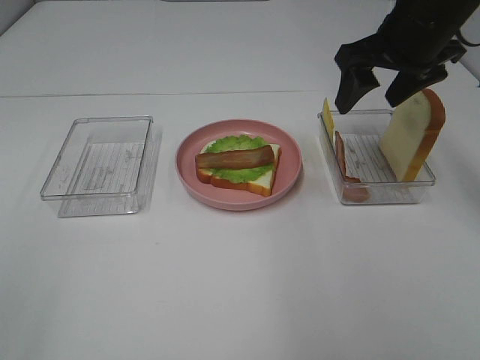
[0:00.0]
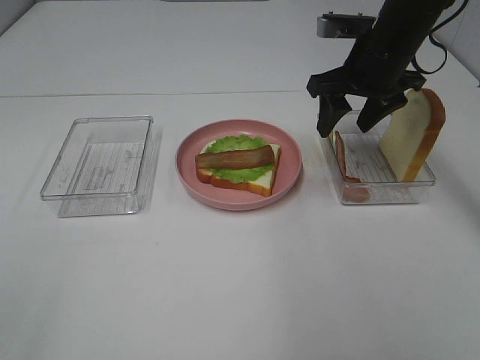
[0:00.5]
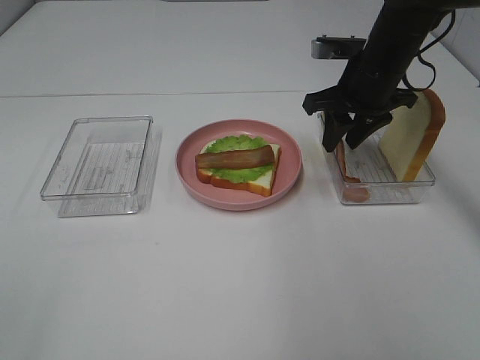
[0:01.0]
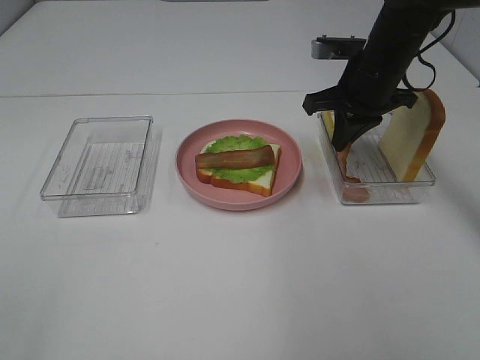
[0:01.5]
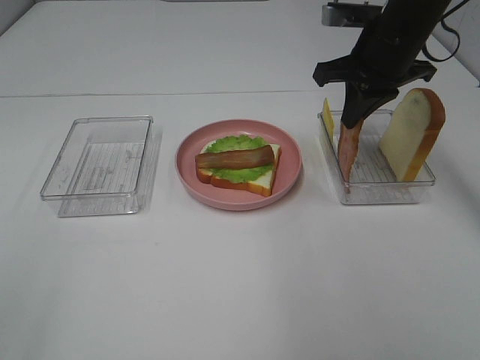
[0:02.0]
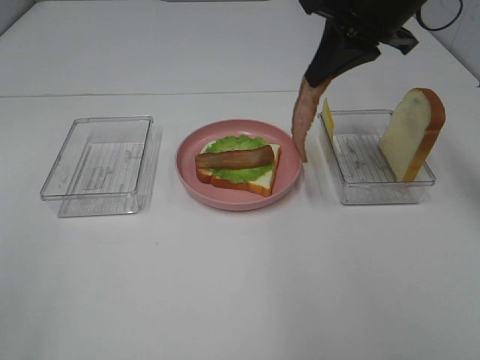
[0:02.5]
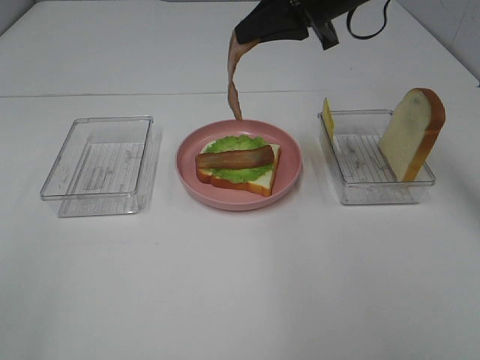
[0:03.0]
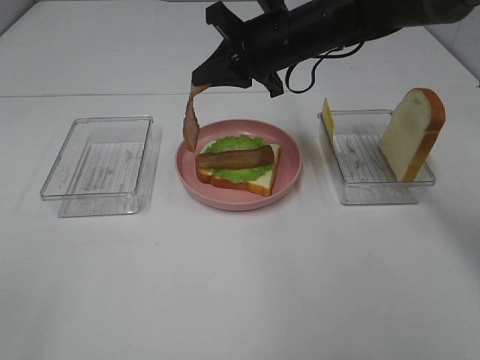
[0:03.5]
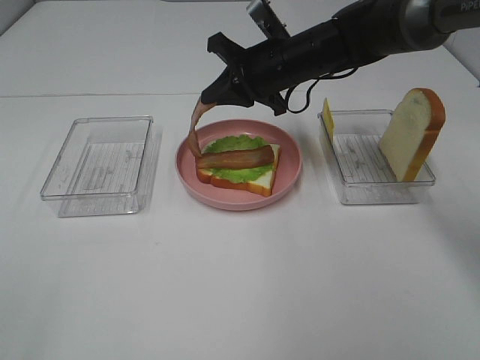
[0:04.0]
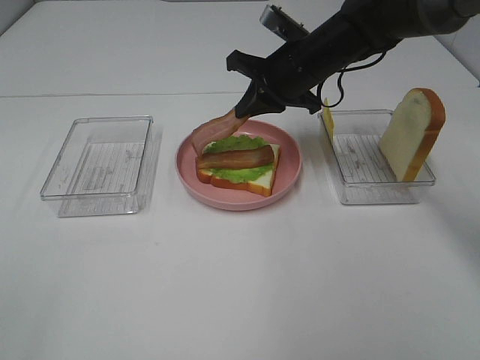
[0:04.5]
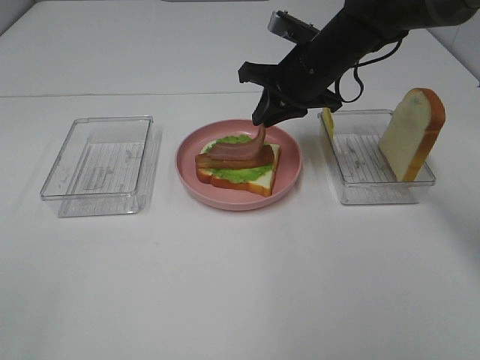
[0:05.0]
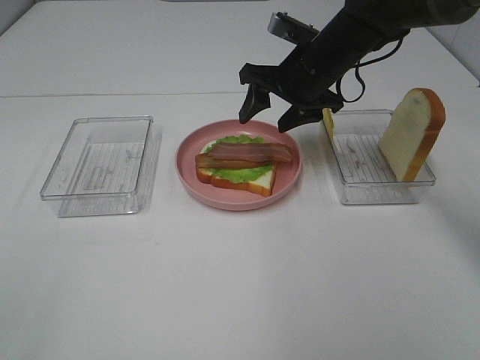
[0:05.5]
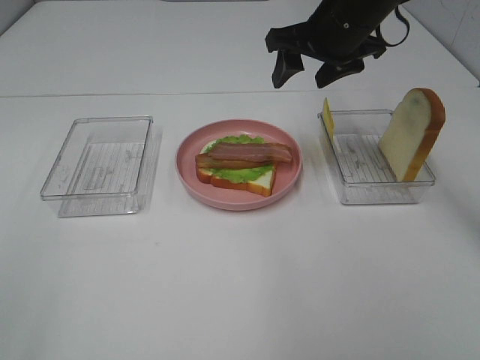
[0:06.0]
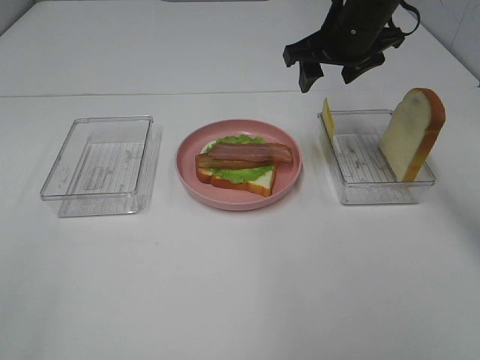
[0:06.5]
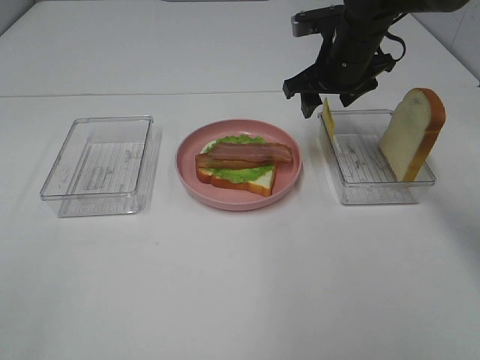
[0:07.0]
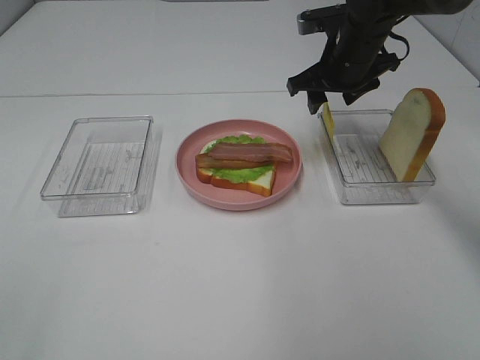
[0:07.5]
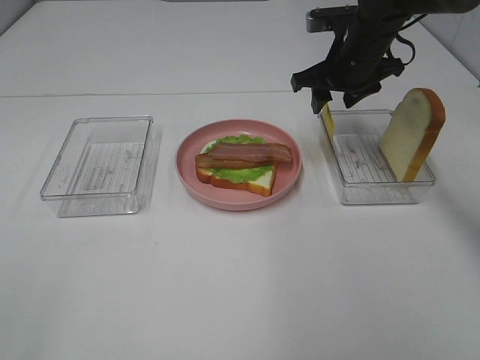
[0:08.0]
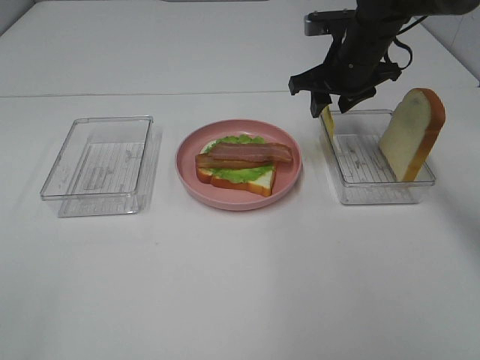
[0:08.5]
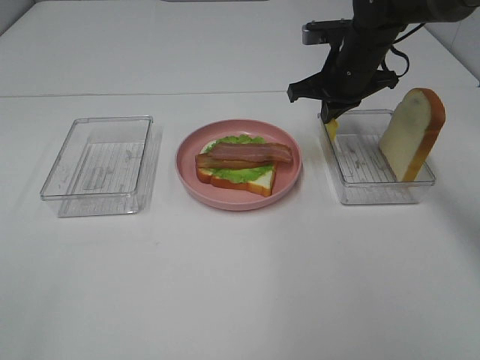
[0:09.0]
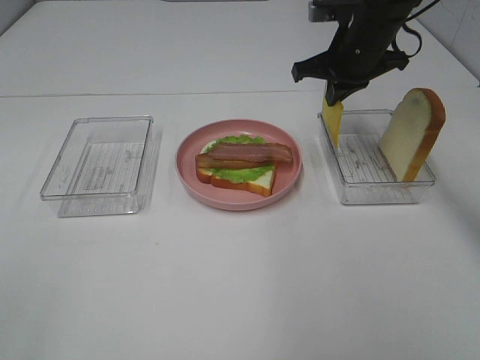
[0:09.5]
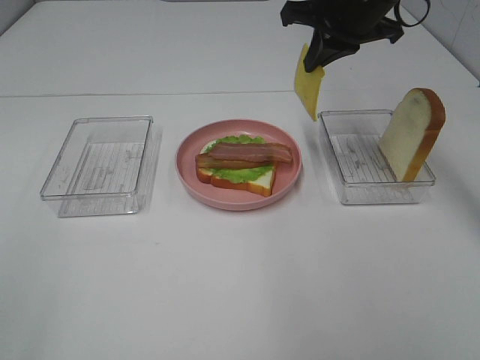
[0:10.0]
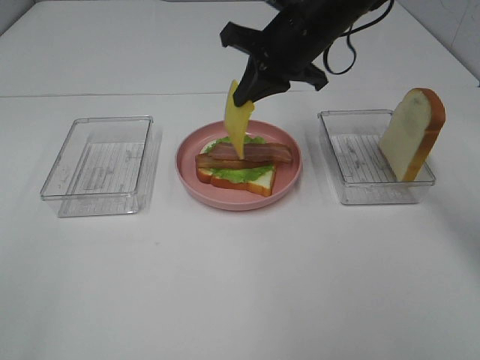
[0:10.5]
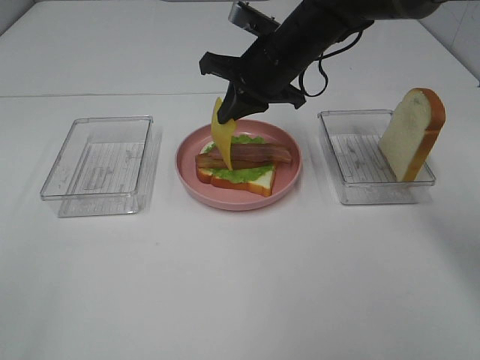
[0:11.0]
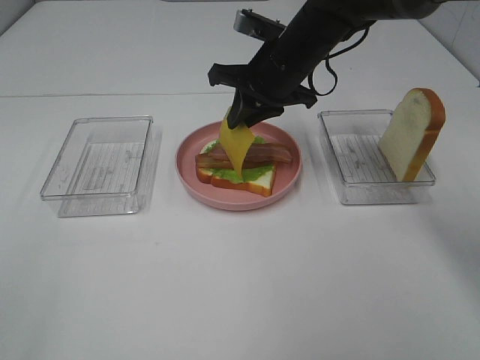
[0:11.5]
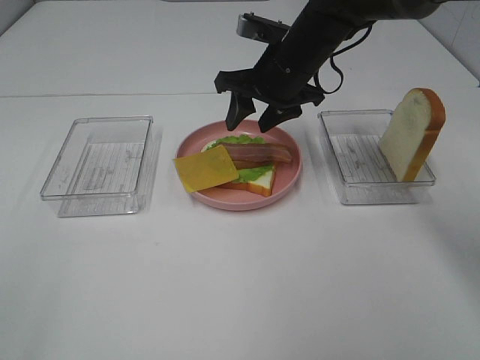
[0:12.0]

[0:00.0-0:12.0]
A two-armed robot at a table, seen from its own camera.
Task of the whole recording: Make sandwiches.
Step, 0:01.5 to 0:05.0: Right hand:place bacon on bacon.
Step, 0:05.5 to 0:09.0: Right hand:grab the cheese slice.
Step, 0:09.5 to 0:11.5: Right hand:place the cheese slice on top of the bacon.
0:00.0 to 0:02.0: The right gripper reaches about 10 cm downward, then returns, and closes its fingers.
0:02.0 to 0:04.0: The right gripper heads to the left and downward, covering some 10 cm.
0:04.0 to 0:06.0: The right gripper is displaced upward and to the right by about 10 cm, and opens up.
0:06.0 to 0:08.0: The right gripper goes roughly 5 cm downward.
0:08.0 to 0:10.0: The right gripper goes approximately 10 cm upward, and closes.
0:10.0 to 0:12.0: The right gripper heads downward and to the left, covering about 10 cm, and opens.

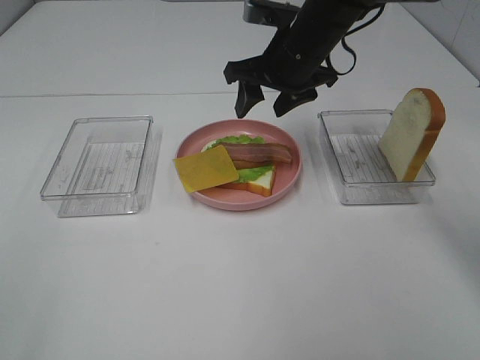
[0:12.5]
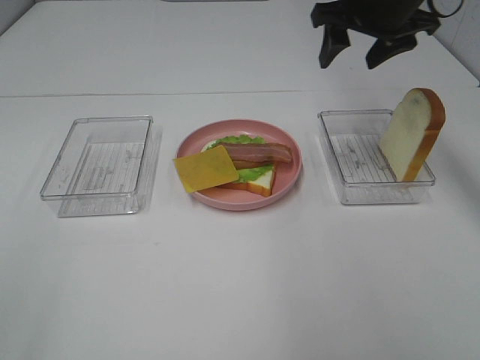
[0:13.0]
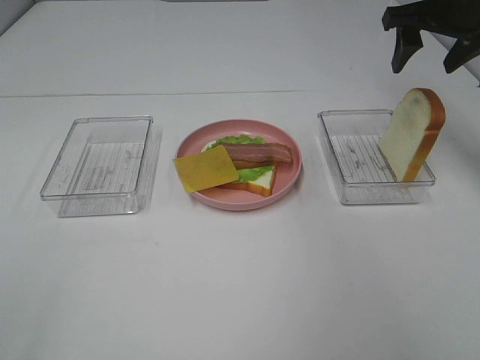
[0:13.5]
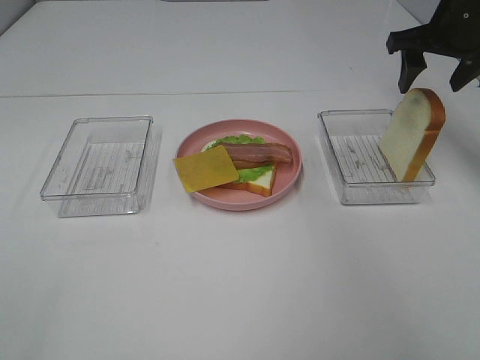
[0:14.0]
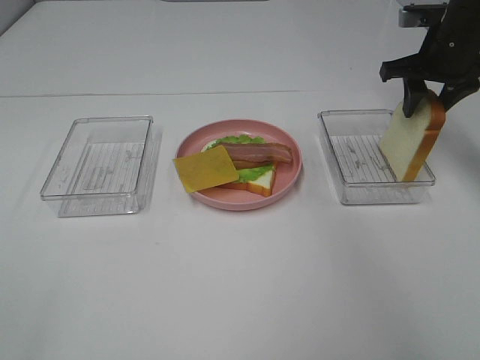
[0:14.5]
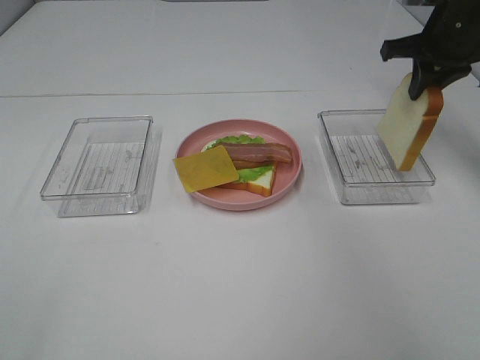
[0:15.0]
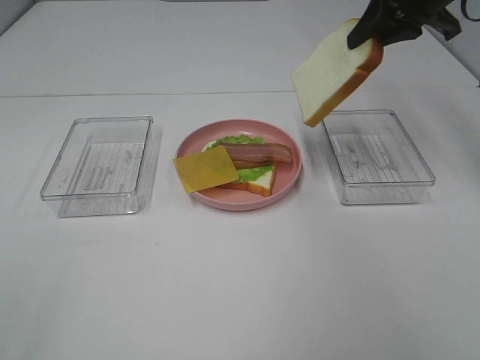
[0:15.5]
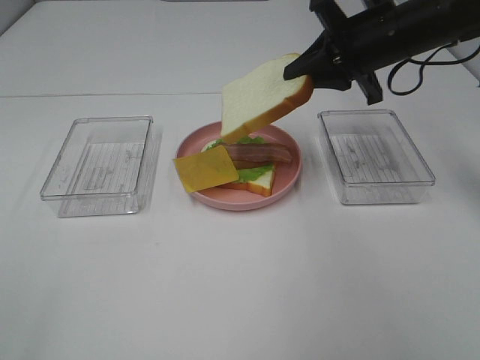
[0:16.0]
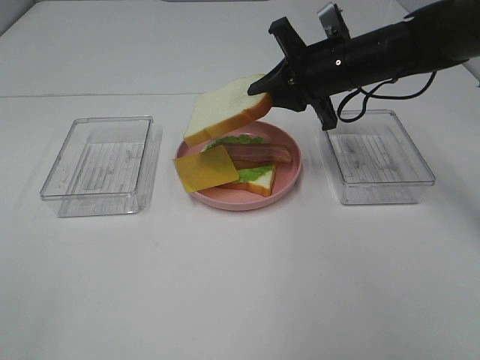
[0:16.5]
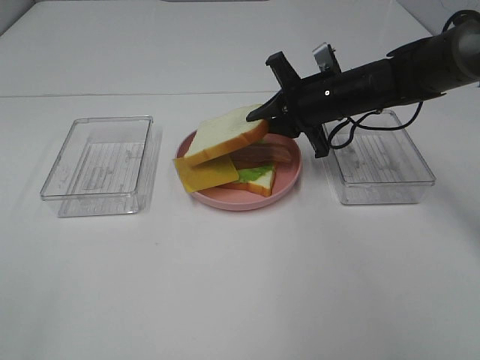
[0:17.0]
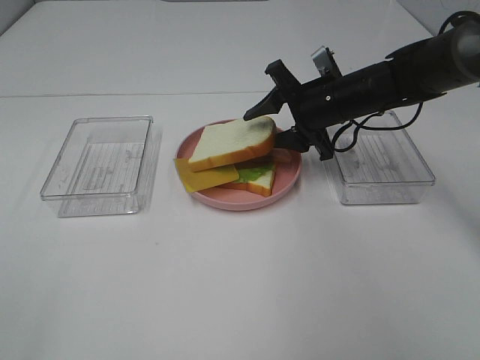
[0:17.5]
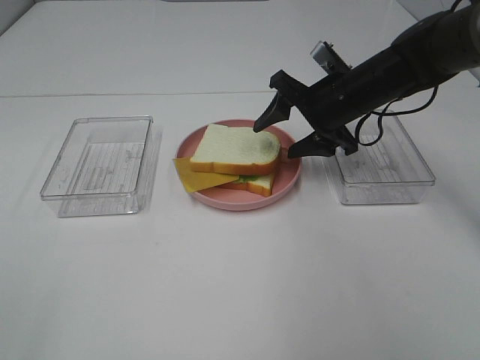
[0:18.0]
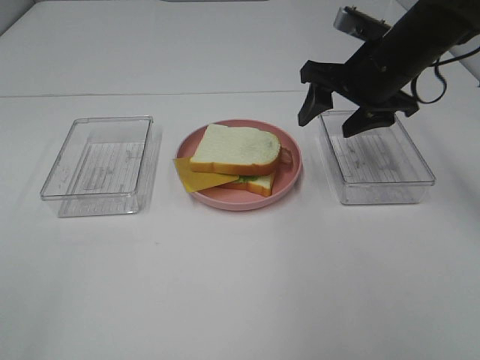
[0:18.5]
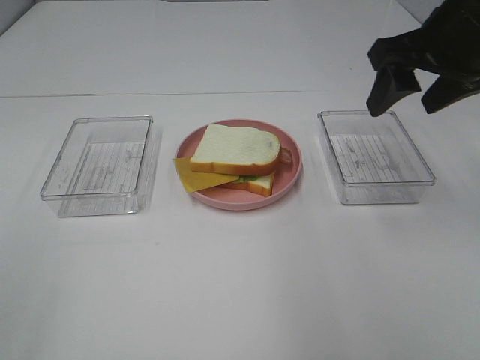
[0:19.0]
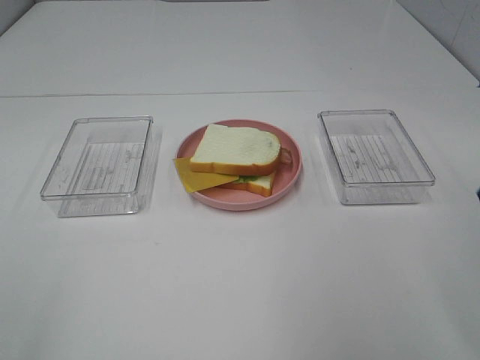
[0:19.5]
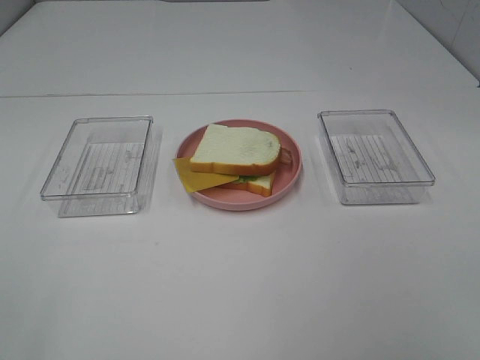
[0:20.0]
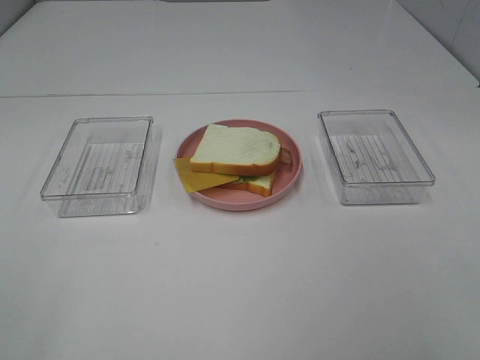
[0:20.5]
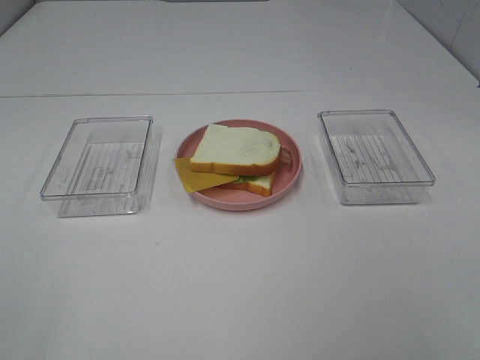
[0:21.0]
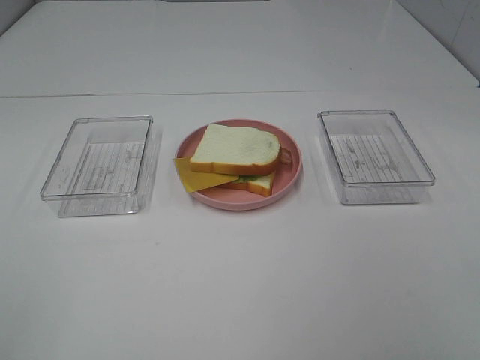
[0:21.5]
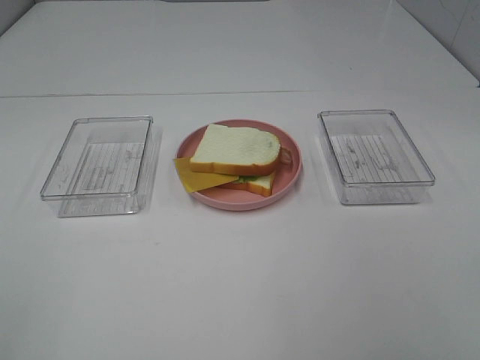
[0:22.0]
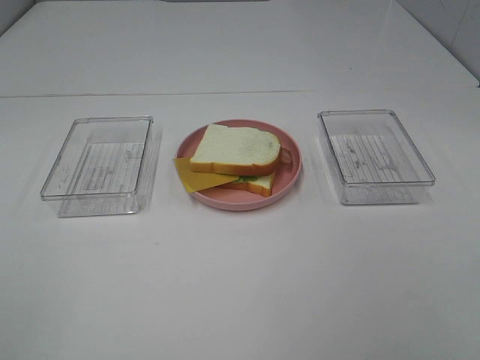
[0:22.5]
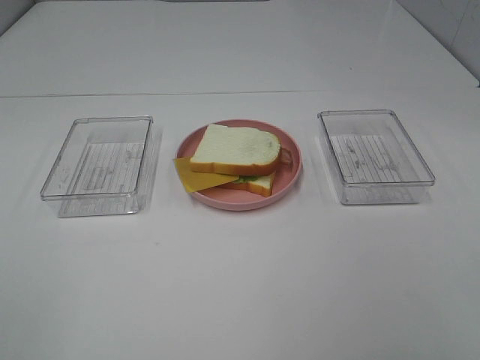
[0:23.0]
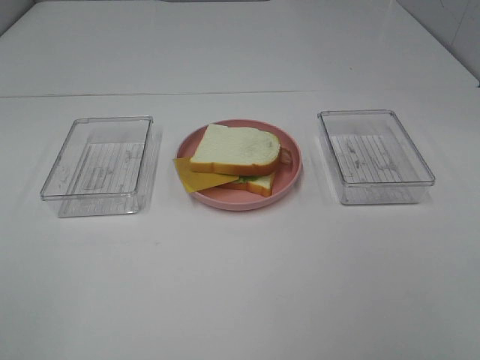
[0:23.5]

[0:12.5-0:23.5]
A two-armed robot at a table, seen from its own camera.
Task of the whole recording: Make sandwiches.
Step, 0:12.5 to 0:14.5: Right hand:grab the bread slice.
Step, 0:15.0 to 0:19.5: Right hand:place the bread slice on the cheese slice.
0:12.5 to 0:14.5: The right gripper moves to the right, about 20 cm.
0:14.5 to 0:16.0: The right gripper goes approximately 10 cm to the left and backward, and closes.
0:16.0 to 0:18.0: The right gripper is displaced downward by roughly 10 cm, and opens its fingers.
0:18.0 to 0:20.0: The right gripper goes roughly 40 cm backward.

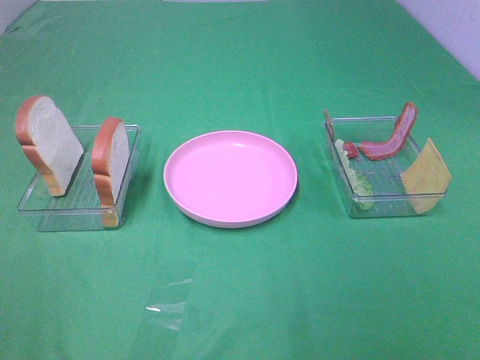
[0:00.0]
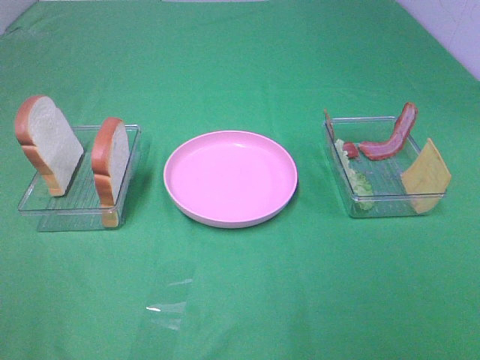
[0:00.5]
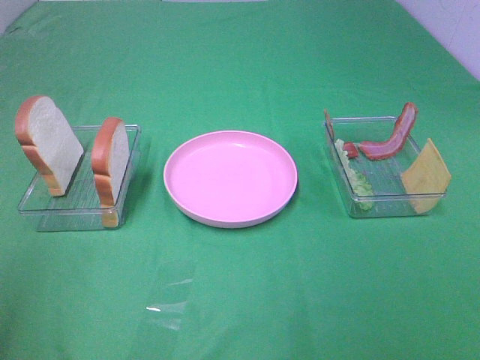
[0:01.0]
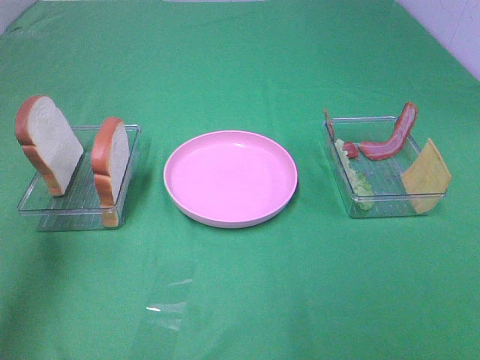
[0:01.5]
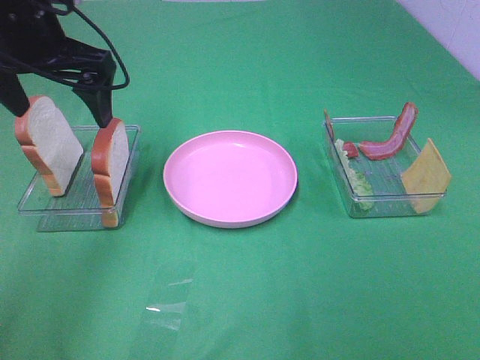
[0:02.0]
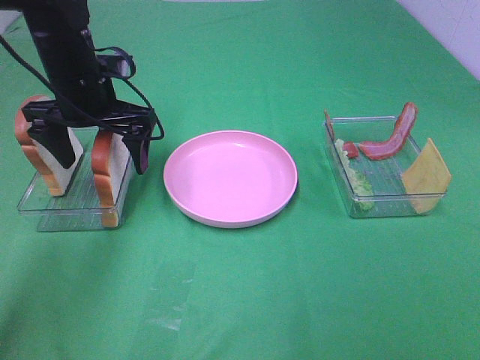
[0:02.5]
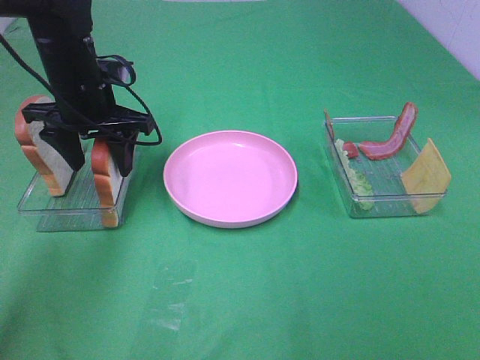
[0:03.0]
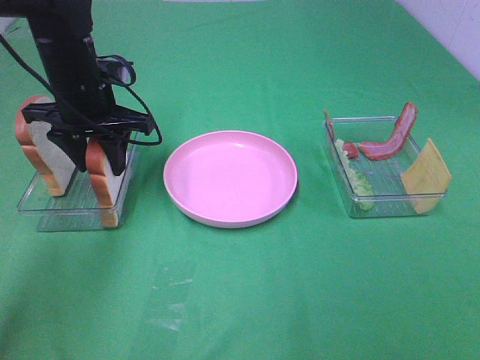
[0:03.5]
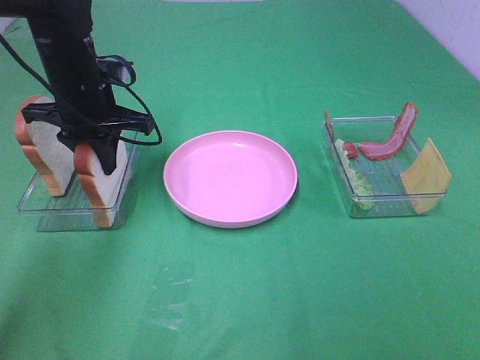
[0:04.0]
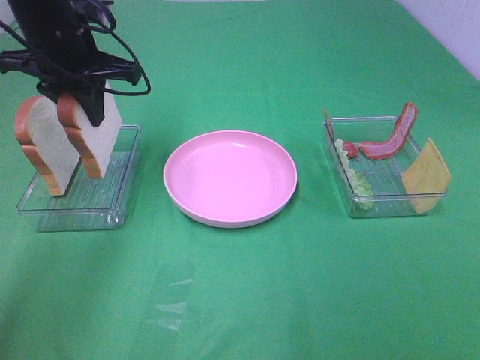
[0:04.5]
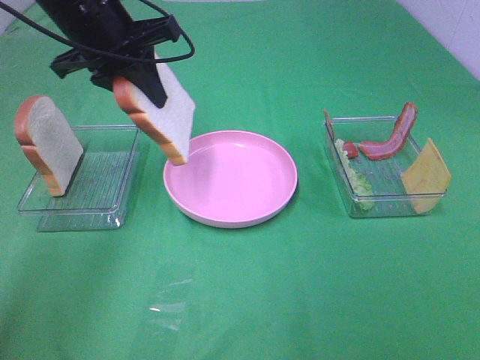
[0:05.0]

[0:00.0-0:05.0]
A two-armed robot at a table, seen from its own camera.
Task of the whole recording: Make sandwiches.
Step, 0:00.0 to 0:03.5: Left hand:grab the bread slice.
0:00.0 to 0:02.5: The left gripper shifts some 40 cm forward.
0:02.5 to 0:05.0: The left gripper is displaced upward by roughly 10 cm, and closes up.
